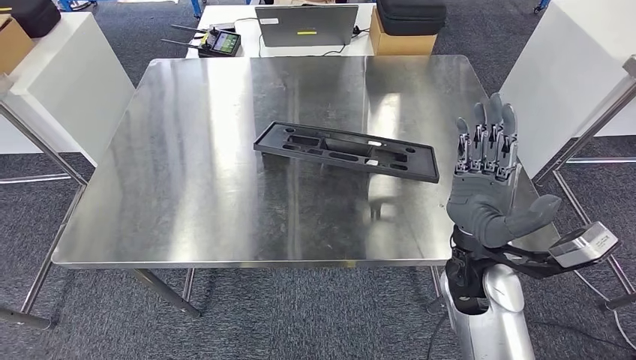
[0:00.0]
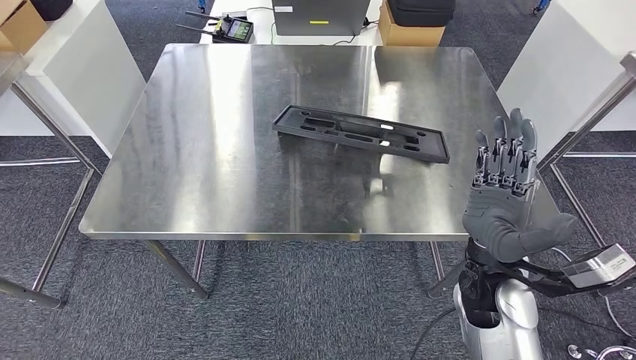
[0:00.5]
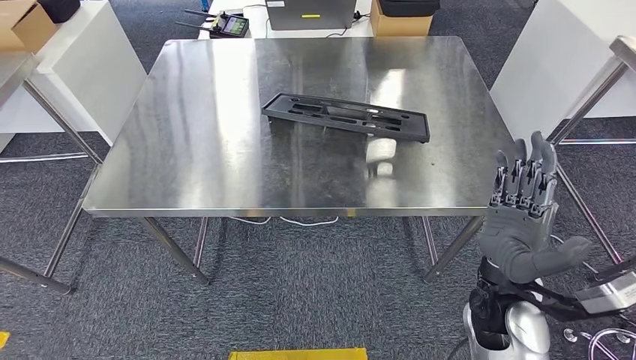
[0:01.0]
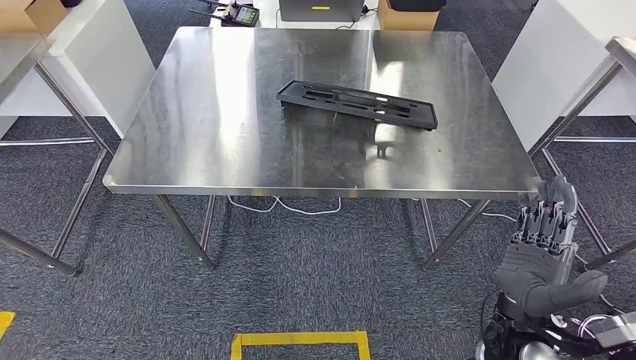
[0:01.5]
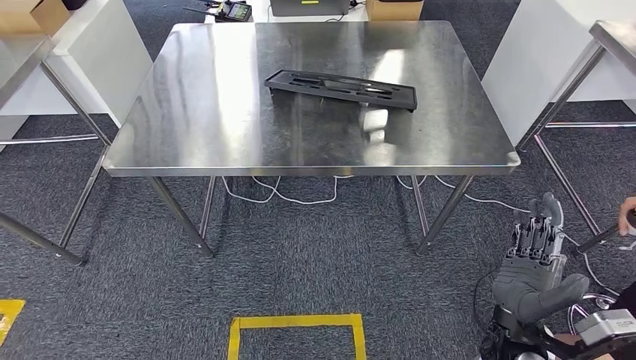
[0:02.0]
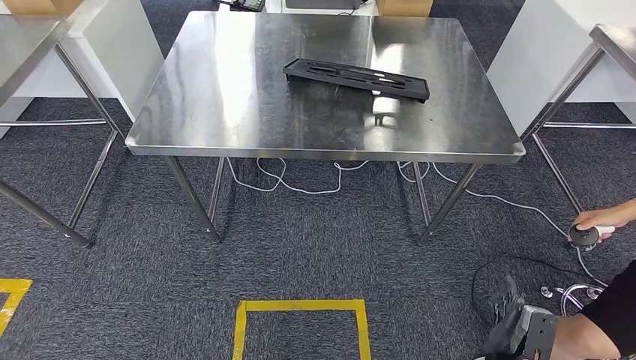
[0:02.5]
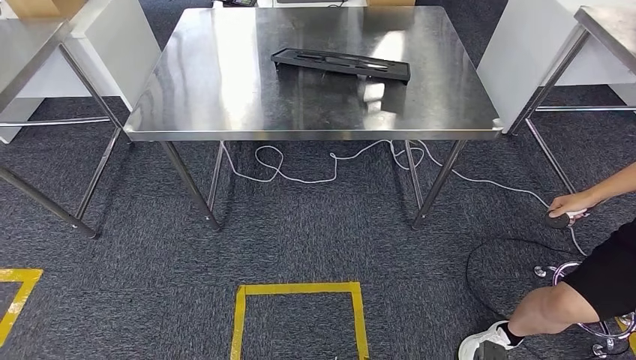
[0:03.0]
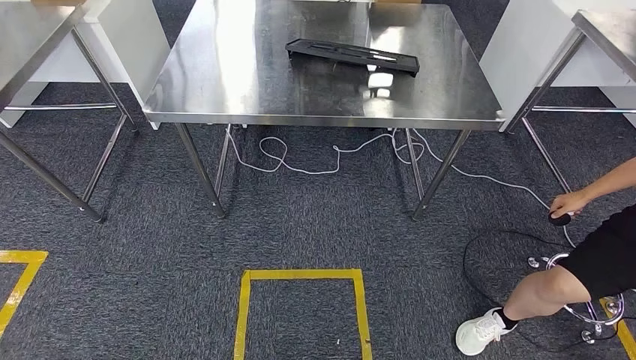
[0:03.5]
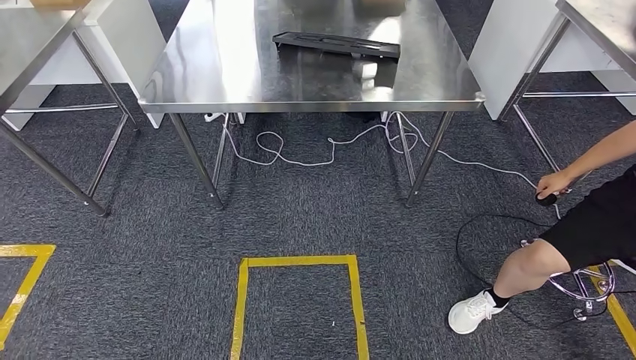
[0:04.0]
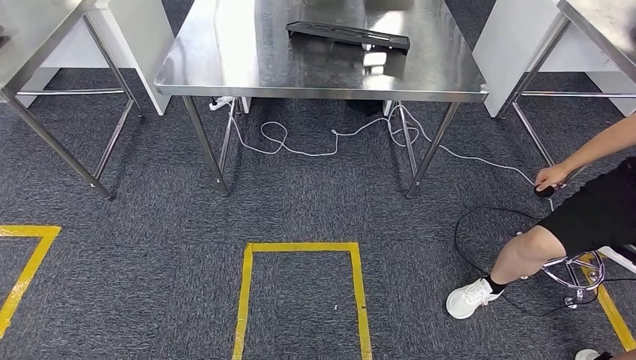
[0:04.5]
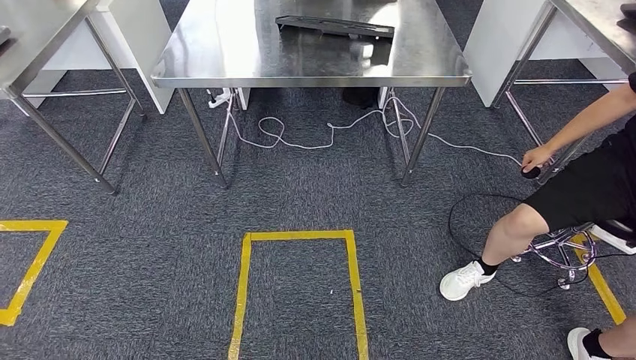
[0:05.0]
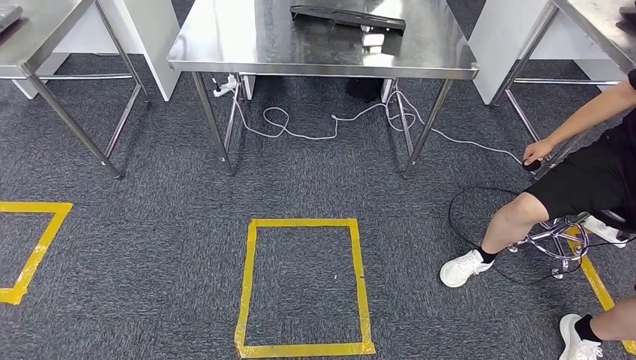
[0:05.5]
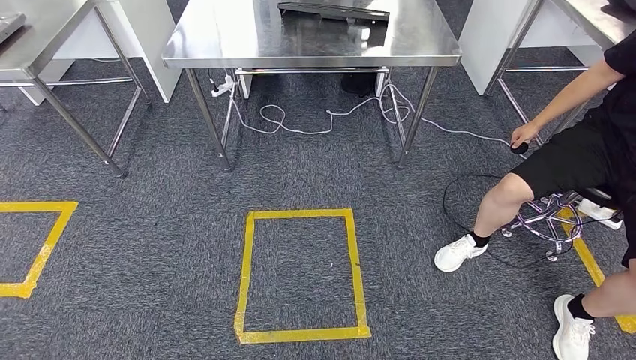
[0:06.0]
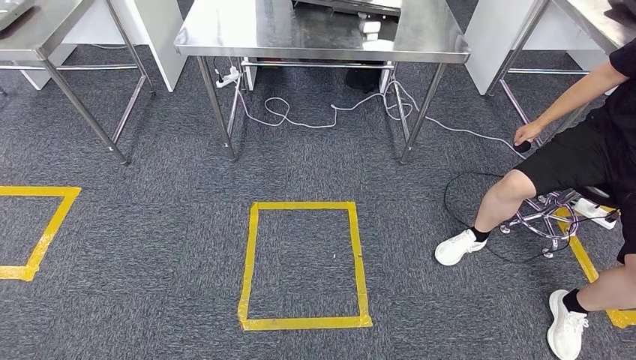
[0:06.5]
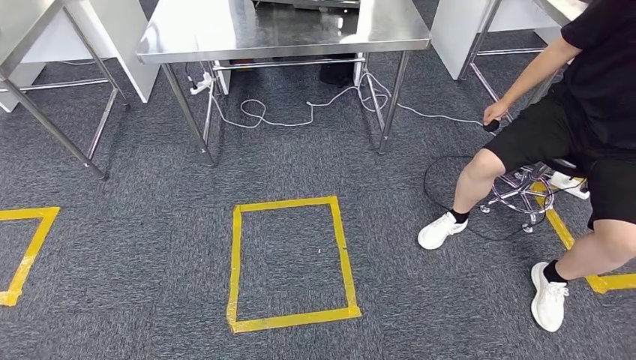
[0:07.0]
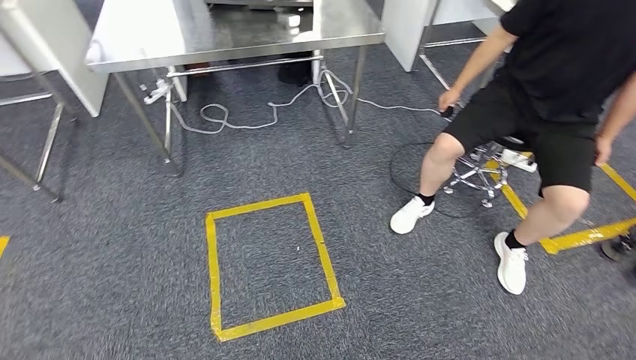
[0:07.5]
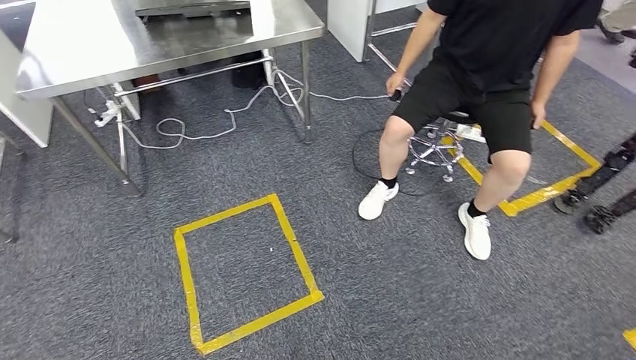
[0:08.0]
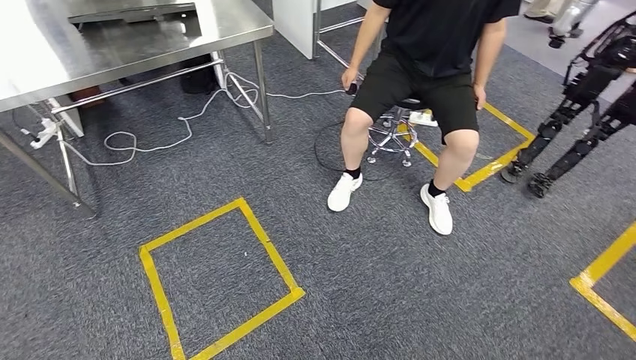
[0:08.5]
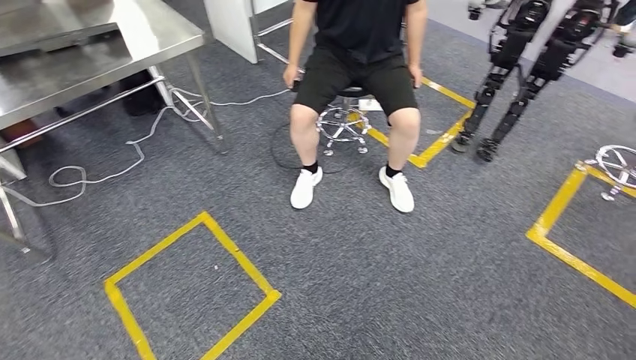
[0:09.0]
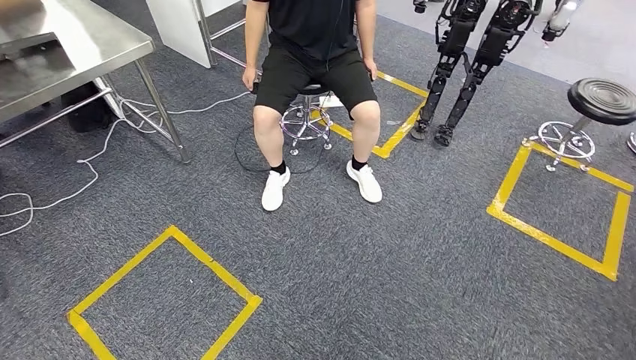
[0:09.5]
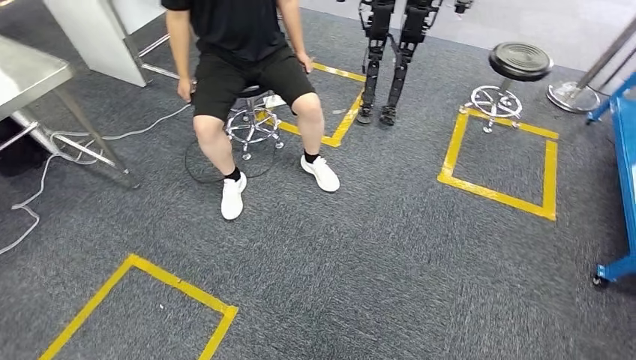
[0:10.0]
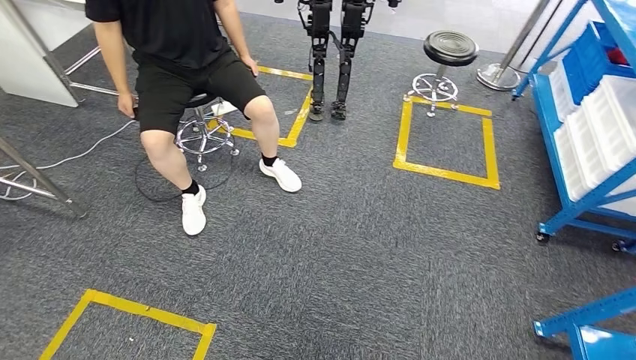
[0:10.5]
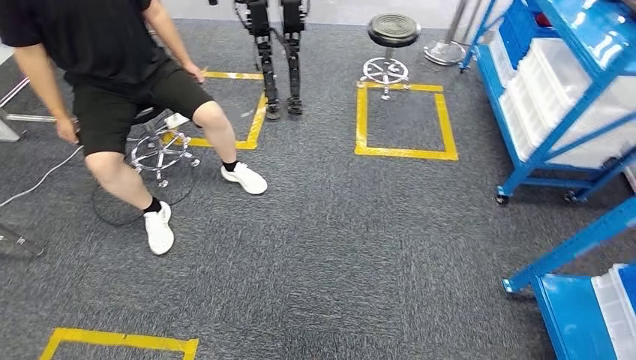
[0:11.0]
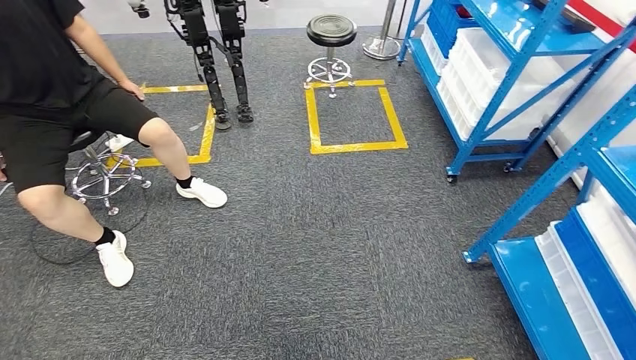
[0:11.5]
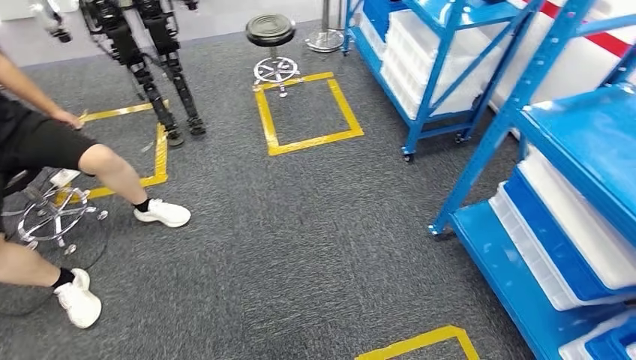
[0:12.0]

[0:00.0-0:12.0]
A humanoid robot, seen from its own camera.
Step, 0:00.0 to 0:04.0: Insert the large material into the corresponding slot on the workbench.

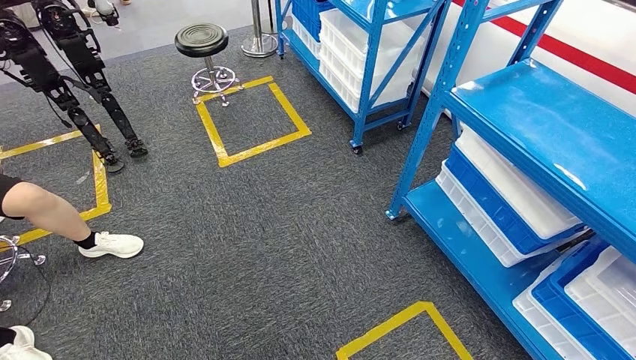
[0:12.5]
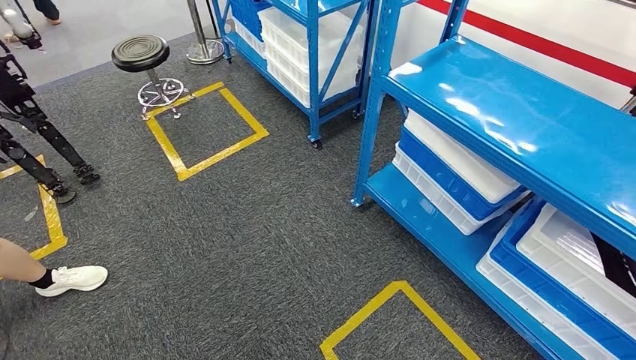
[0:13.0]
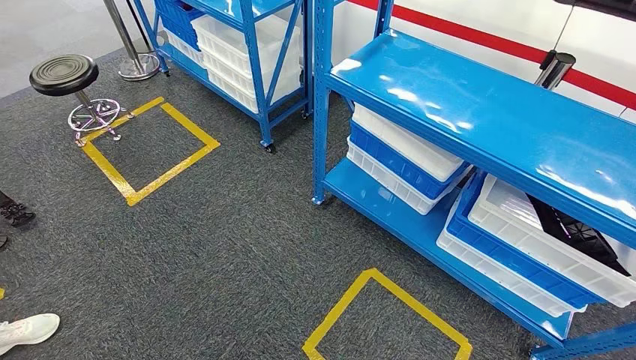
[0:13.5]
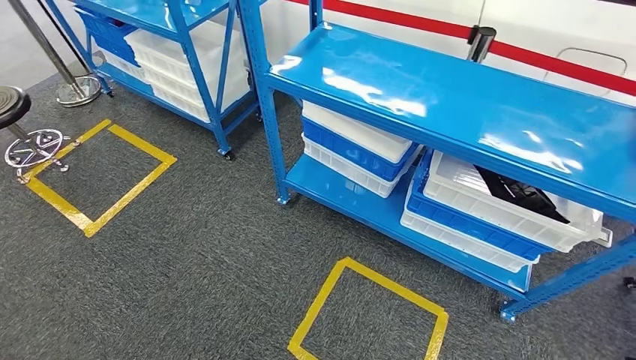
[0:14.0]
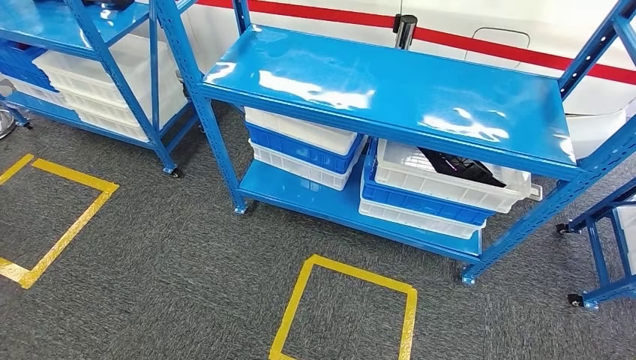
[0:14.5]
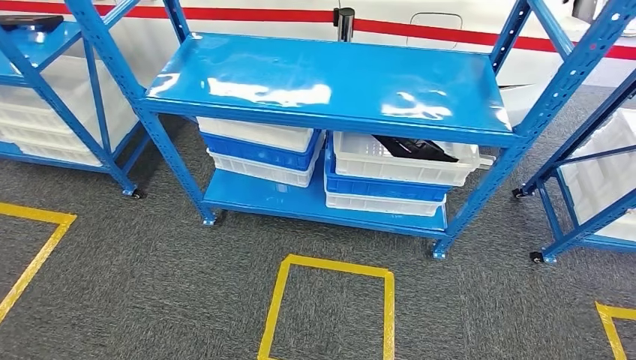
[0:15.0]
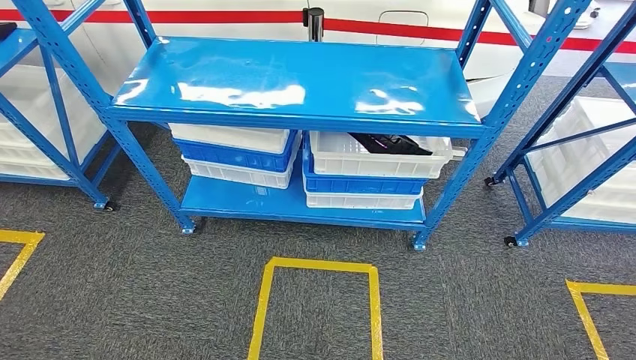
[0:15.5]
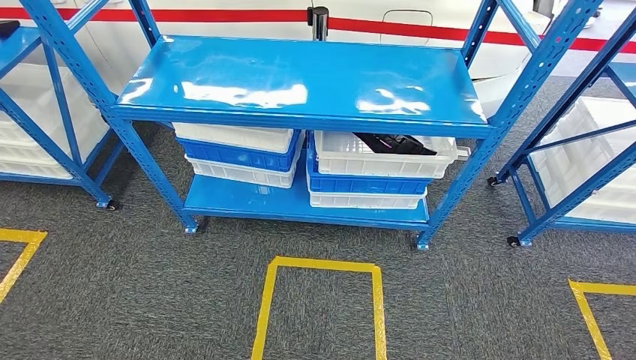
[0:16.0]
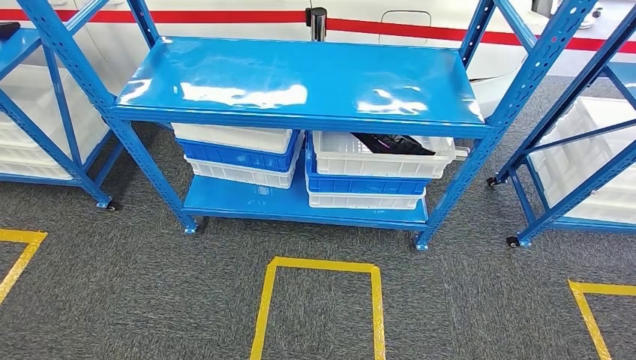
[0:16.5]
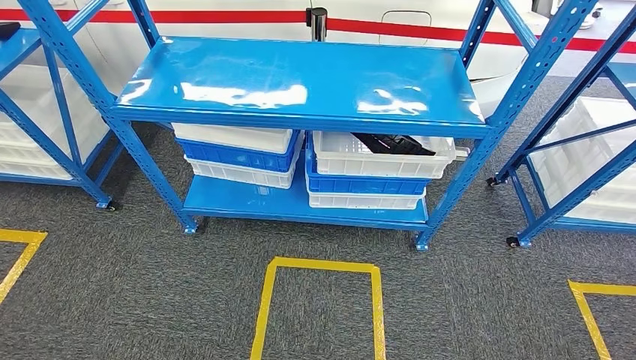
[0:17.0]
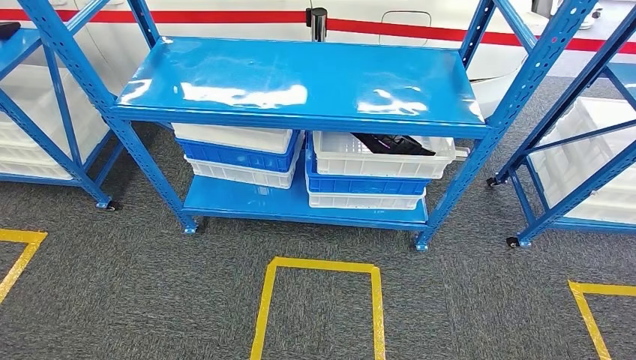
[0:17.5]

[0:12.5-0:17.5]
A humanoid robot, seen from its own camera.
Step, 0:12.5 to 0:17.5: Move to the initial position of the shelf.
